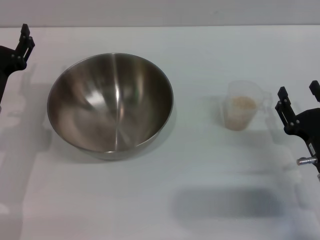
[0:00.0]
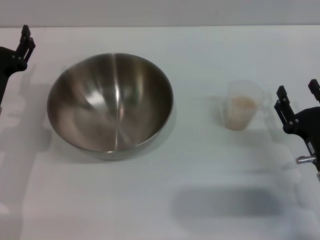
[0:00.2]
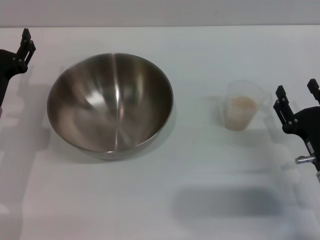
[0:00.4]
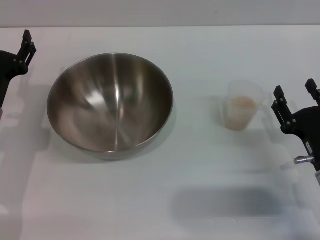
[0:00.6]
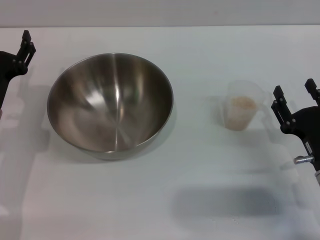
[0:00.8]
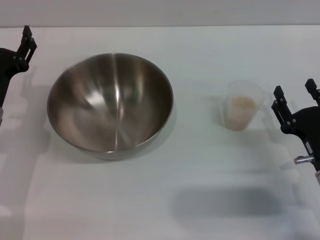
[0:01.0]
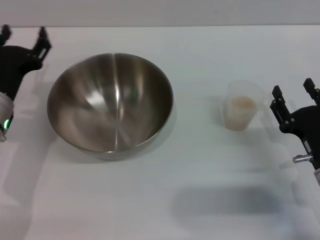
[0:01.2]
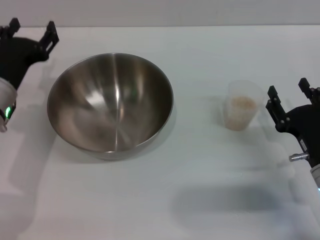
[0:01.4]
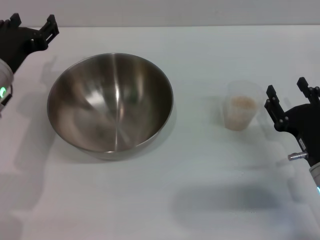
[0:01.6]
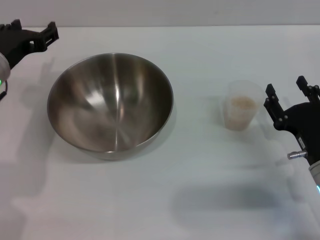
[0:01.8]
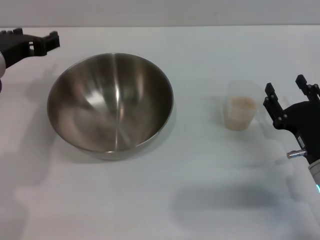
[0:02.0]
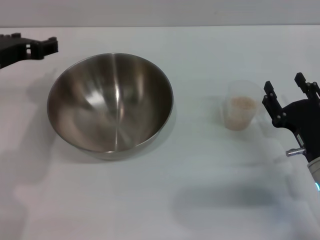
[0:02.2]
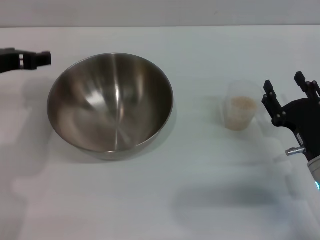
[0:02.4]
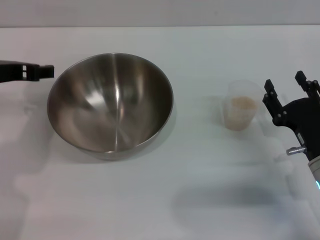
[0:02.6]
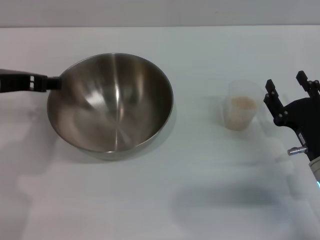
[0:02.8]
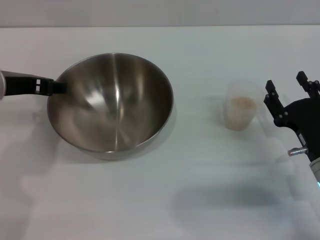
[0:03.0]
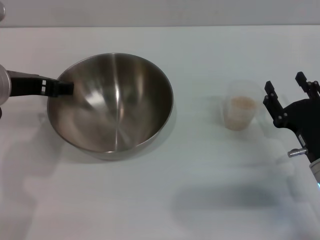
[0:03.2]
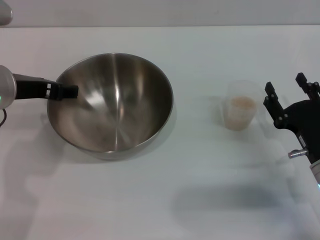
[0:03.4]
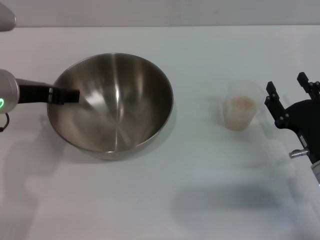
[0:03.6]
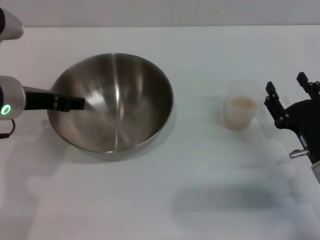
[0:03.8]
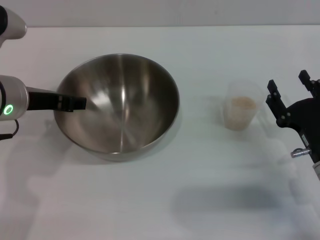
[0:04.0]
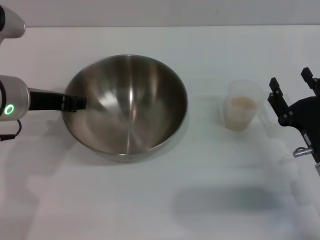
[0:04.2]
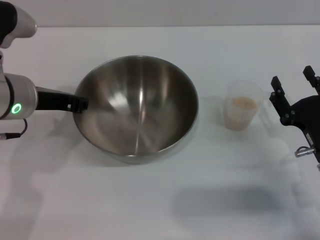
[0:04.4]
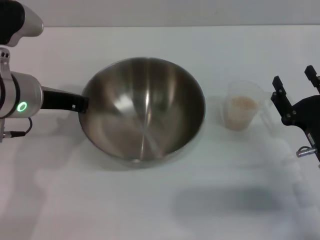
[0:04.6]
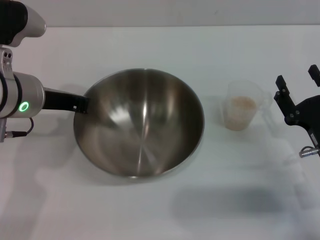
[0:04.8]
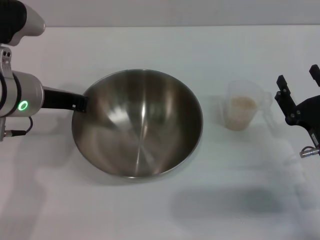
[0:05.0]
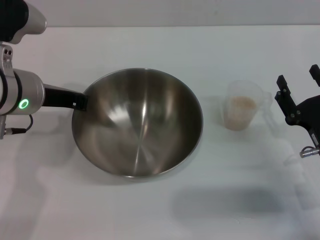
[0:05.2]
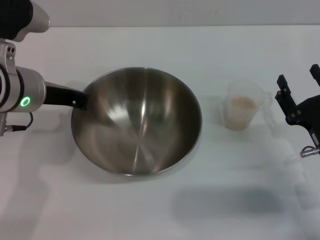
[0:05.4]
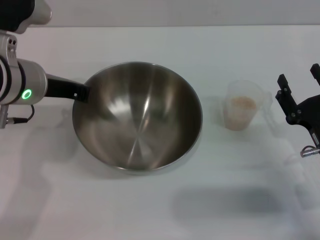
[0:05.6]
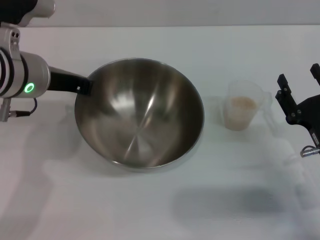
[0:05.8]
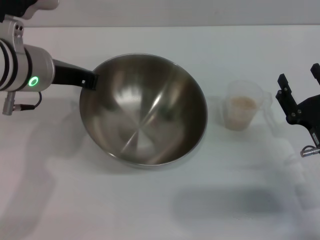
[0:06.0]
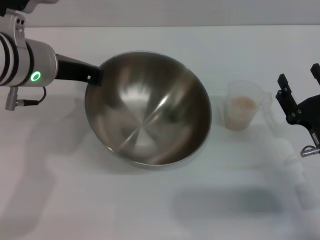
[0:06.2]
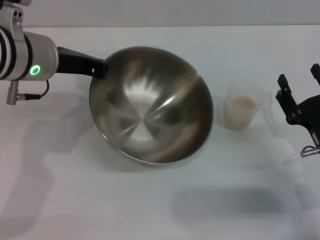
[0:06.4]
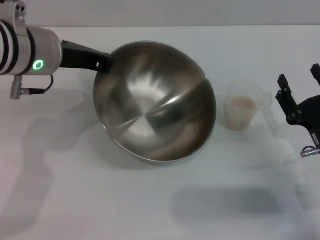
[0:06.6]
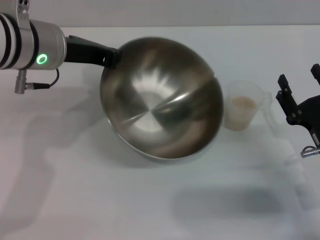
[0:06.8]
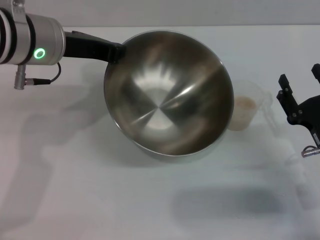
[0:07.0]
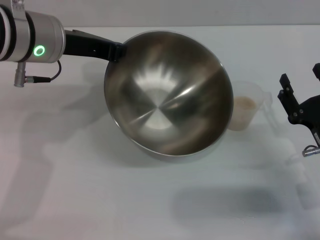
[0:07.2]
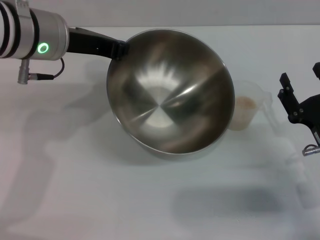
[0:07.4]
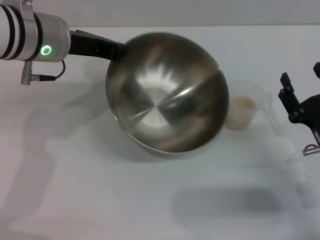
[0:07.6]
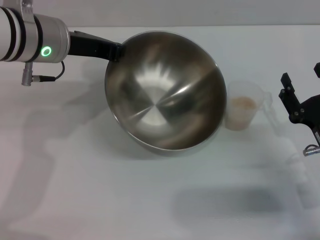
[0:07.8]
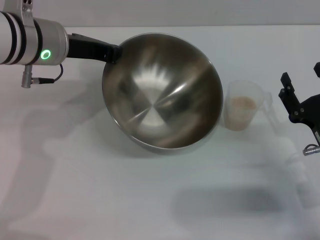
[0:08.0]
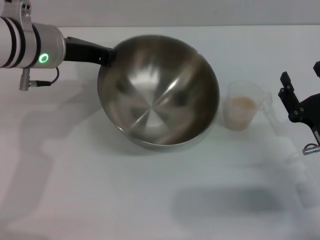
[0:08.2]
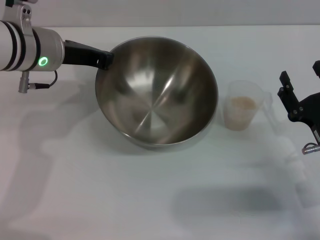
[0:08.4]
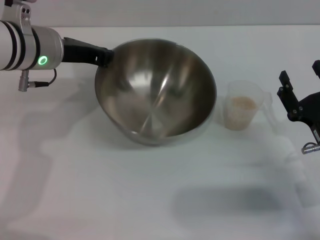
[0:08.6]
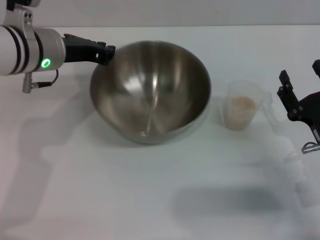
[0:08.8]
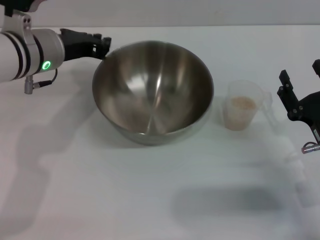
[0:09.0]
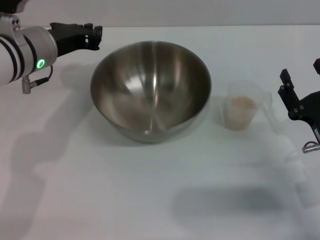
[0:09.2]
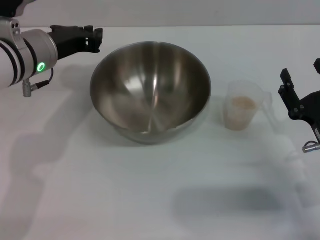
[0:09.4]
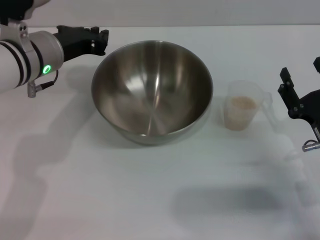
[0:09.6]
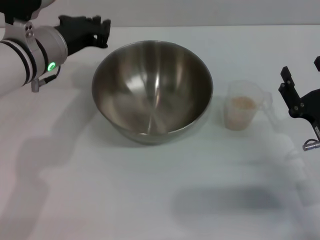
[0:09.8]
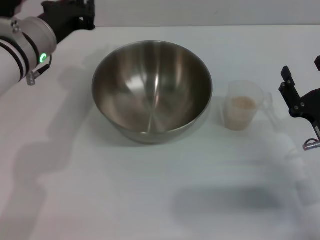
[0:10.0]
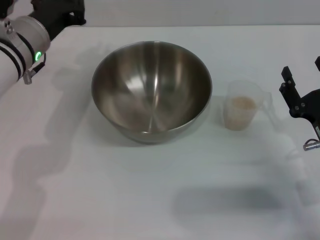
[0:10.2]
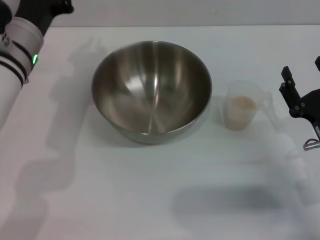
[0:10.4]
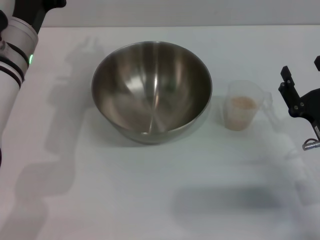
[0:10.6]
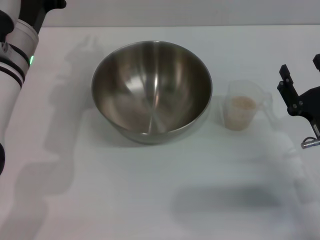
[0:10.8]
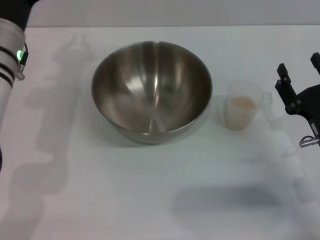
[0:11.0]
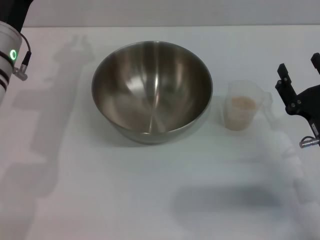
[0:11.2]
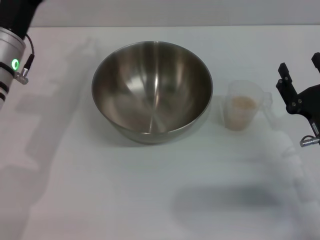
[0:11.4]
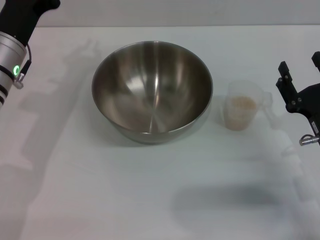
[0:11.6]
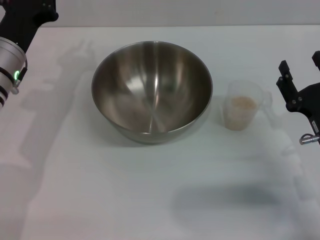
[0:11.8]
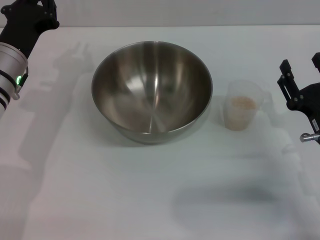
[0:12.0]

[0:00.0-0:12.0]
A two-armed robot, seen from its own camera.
Task of the whole recording: Place the bowl in the middle of the table with one hand and pour the rice from the grain cup into it with the other hand.
Step, 0:00.0 to 0:06.2: Pick up the bowl with the left gripper.
Step, 0:06.4 to 0:09.4: Place the bowl in the center of view with the left gripper.
0:00.0 to 0:01.6: The left gripper moves upward, roughly 5 cm.
0:01.6 to 0:03.0: The left gripper shifts approximately 5 cm upward.
0:03.0 to 0:04.4: The grippers make only small movements.
0:04.4 to 0:06.0: The left gripper closes up.
0:07.6 to 0:09.0: The grippers make only small movements.
0:10.4 to 0:12.0: The left gripper ends up some 5 cm from where it was.

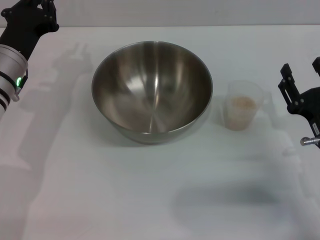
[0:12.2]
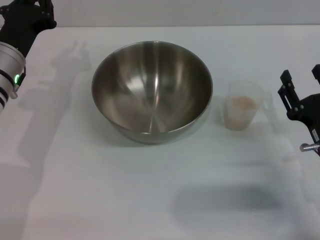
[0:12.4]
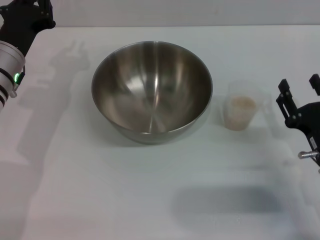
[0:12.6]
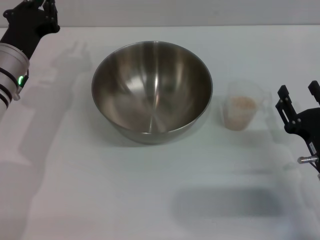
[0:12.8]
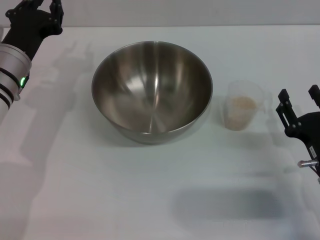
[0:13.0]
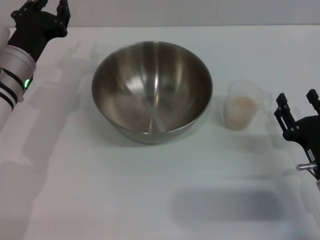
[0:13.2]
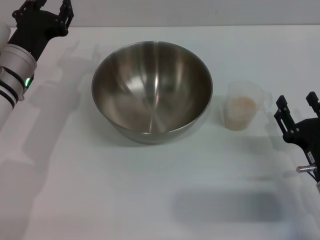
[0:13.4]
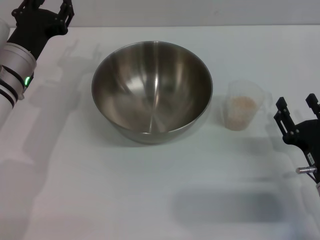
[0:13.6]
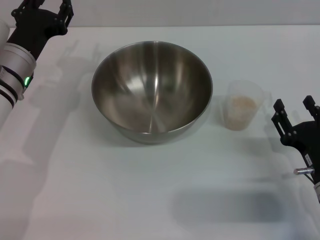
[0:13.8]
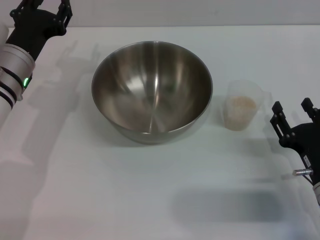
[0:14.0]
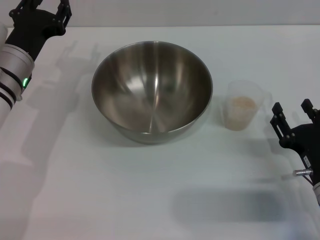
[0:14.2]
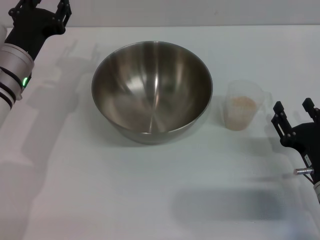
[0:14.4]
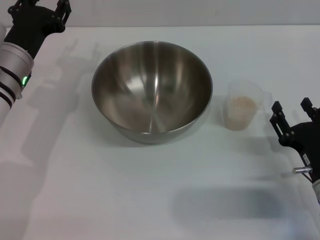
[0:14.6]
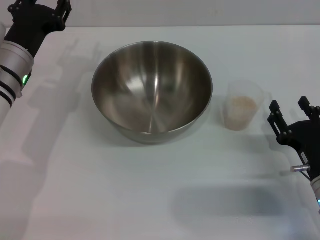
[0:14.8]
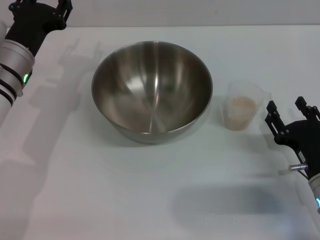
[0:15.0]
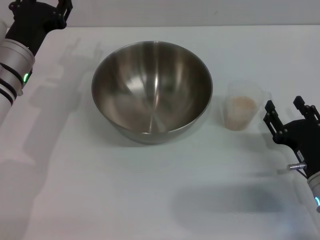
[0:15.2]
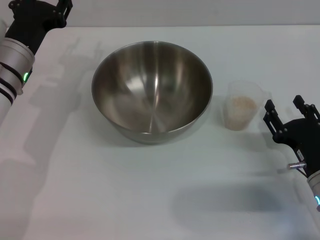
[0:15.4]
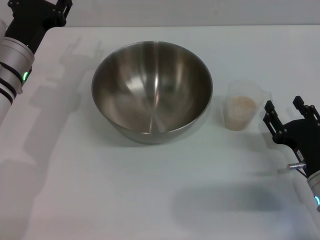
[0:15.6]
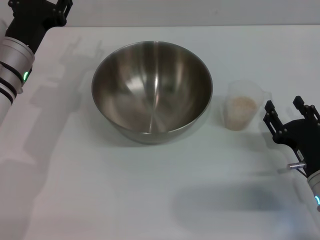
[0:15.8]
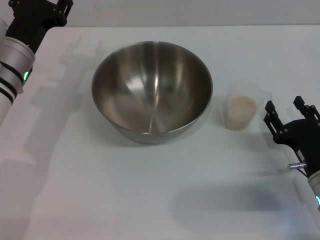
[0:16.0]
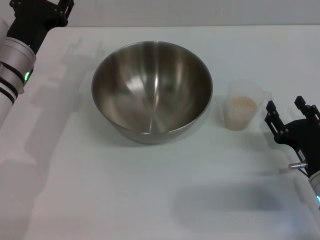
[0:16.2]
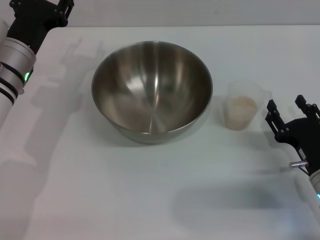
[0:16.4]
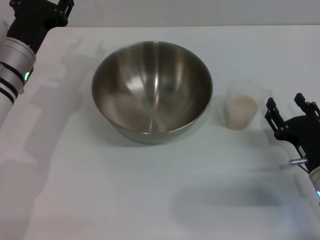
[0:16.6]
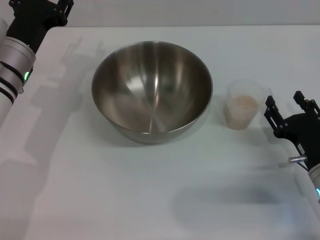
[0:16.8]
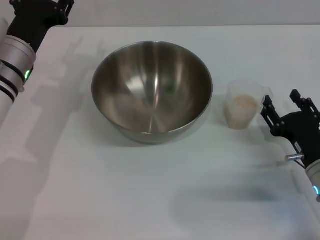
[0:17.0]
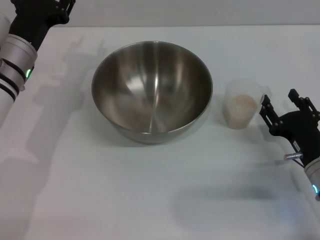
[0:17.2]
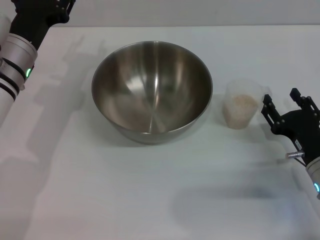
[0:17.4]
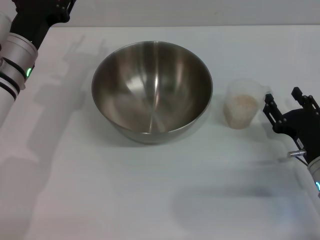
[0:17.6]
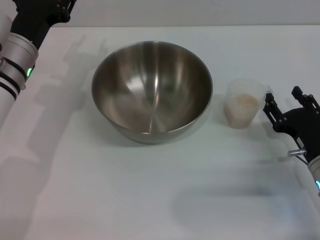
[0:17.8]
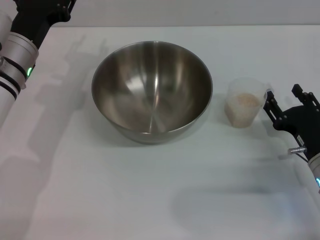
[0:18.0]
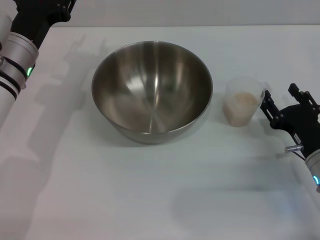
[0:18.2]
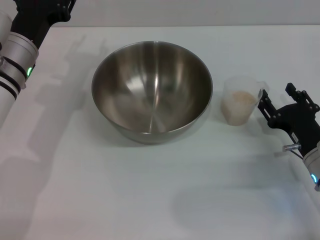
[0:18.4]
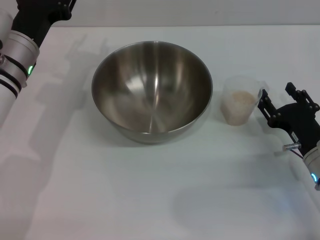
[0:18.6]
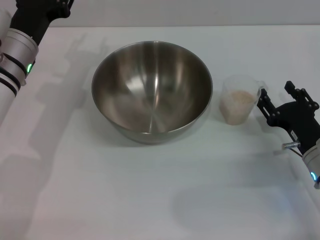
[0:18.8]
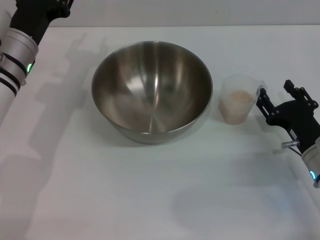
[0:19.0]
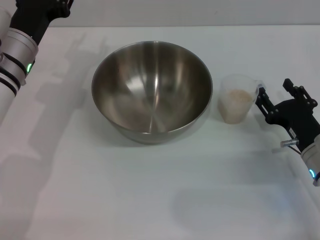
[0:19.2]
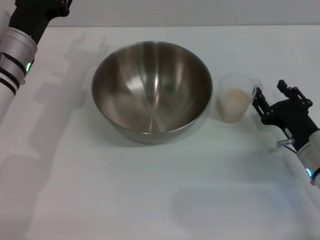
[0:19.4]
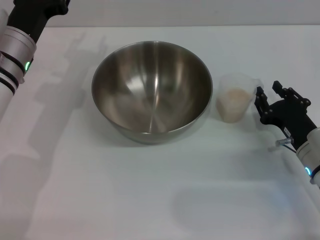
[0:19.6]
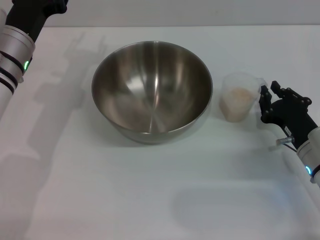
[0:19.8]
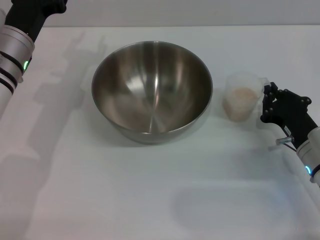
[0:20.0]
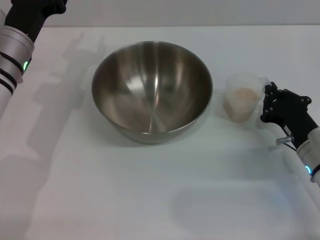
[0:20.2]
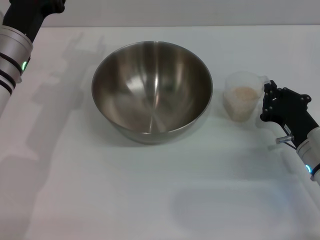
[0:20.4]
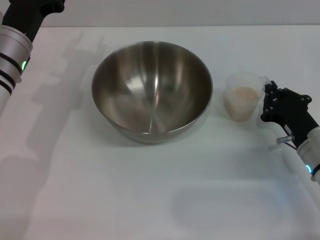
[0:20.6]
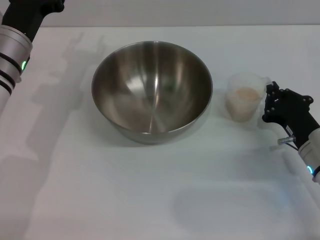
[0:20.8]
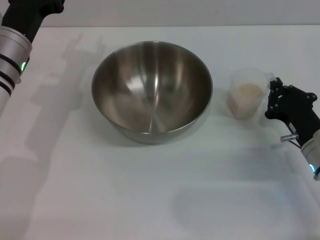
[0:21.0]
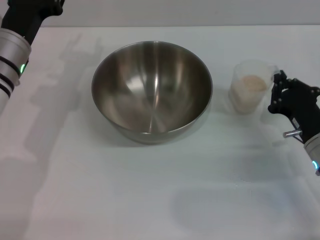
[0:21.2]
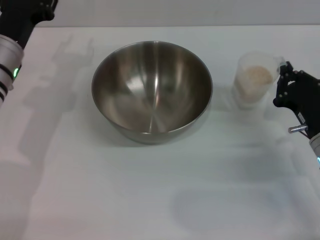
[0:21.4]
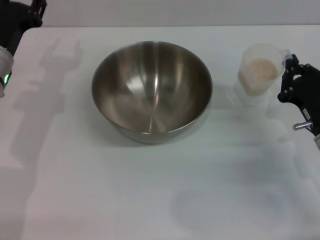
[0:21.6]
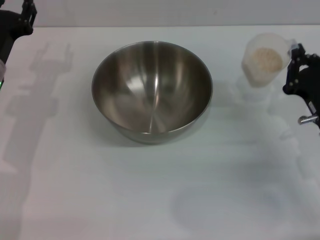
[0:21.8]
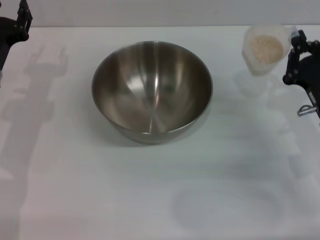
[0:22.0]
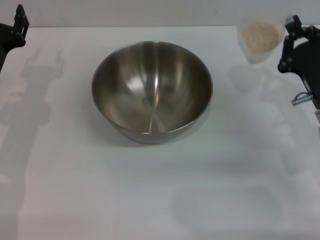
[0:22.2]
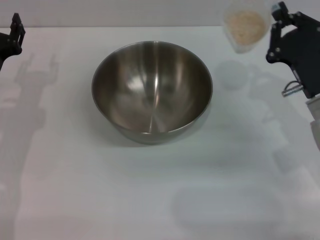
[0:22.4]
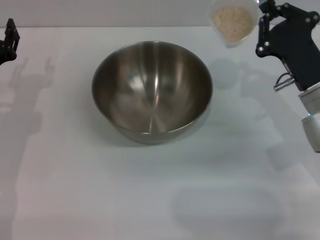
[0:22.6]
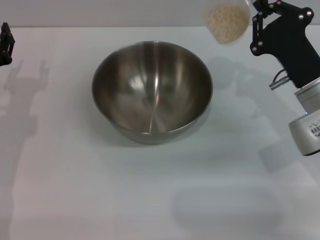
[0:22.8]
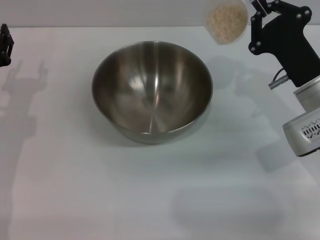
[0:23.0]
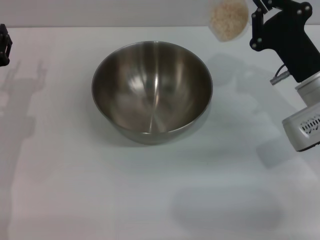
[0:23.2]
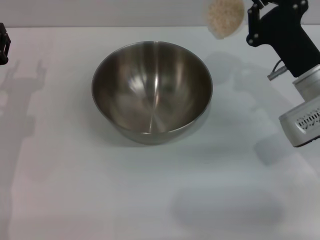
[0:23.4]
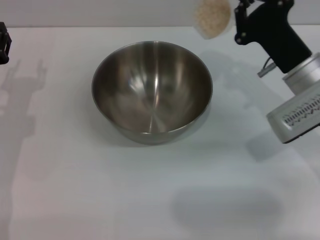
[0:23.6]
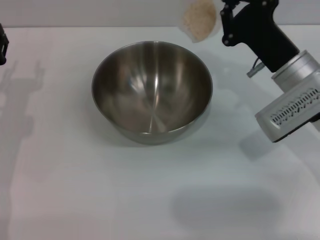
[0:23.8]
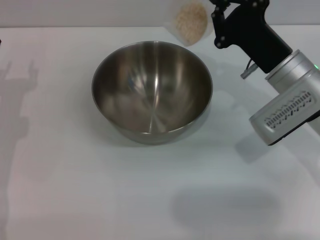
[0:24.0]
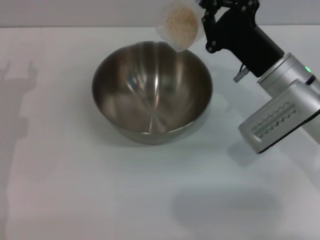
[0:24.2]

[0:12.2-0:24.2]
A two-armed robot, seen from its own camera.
Task of the whole recording: Place the bowl in the middle of the table with one hand and pour the rice from the grain cup into it with the other hand.
Step, 0:12.2 to 0:21.4: Pick up the cup with rice in it with the right gripper.
0:12.2 to 0:13.8: The left gripper opens.
0:13.8 to 0:15.2: The grippers make only small movements.
0:15.2 to 0:16.6: The two grippers keep their place.
0:16.6 to 0:18.2: The grippers stay close to where they were, moving slightly.
0:18.2 to 0:19.8: The right gripper closes.
0:19.8 to 0:21.2: The right gripper closes up.
0:21.2 to 0:22.6: The left gripper goes some 5 cm to the left. The right gripper is displaced upward by about 5 cm.
0:22.6 to 0:24.2: The right gripper ends up approximately 5 cm from where it was.
